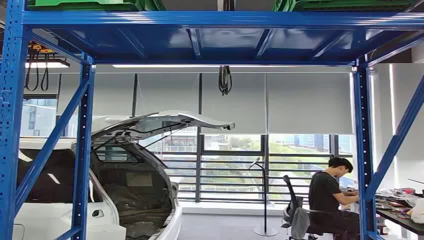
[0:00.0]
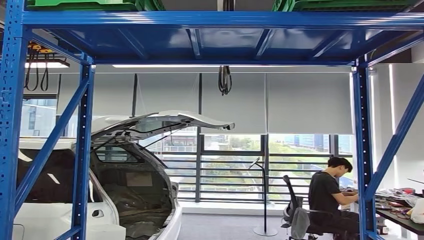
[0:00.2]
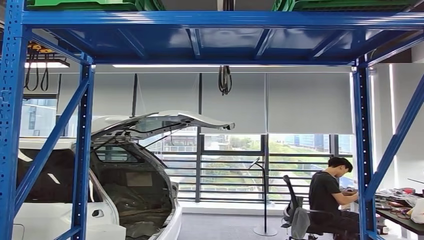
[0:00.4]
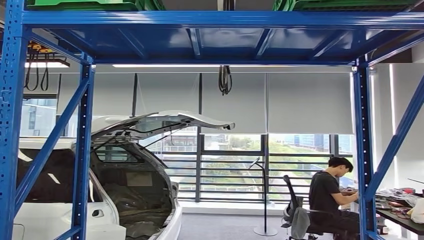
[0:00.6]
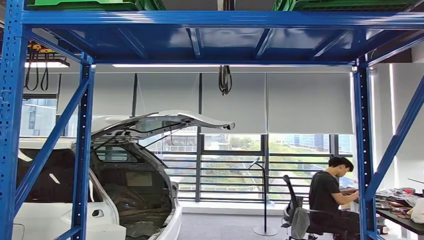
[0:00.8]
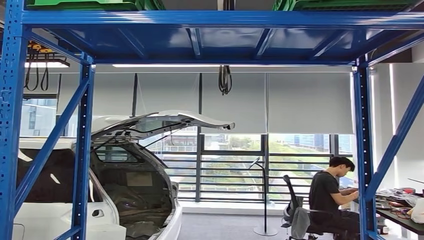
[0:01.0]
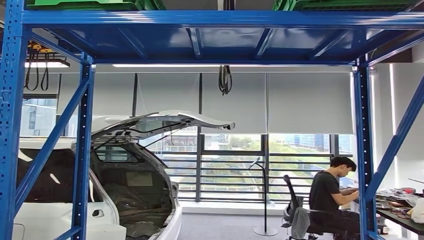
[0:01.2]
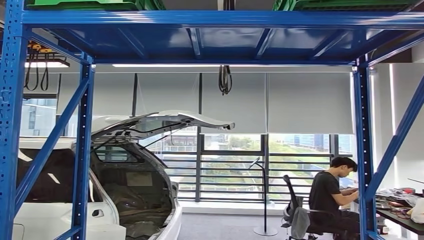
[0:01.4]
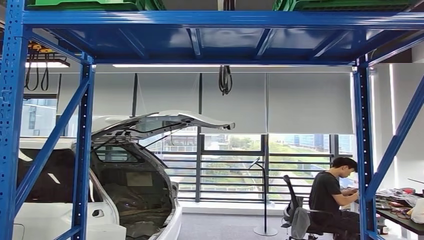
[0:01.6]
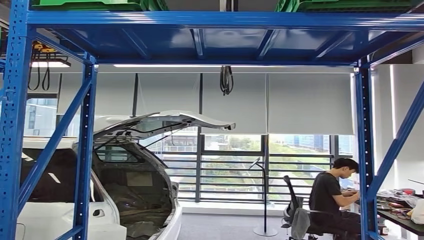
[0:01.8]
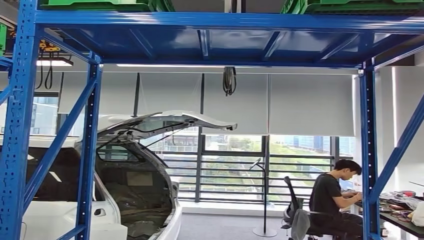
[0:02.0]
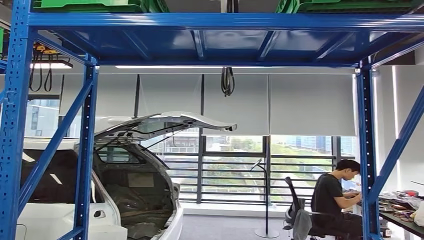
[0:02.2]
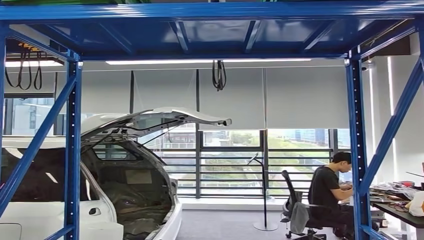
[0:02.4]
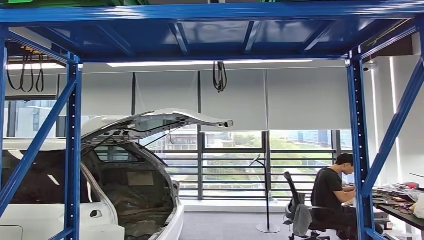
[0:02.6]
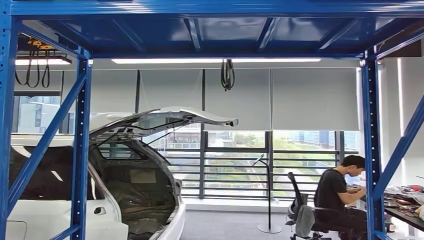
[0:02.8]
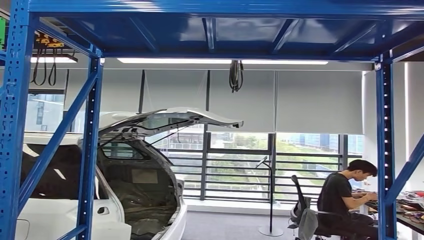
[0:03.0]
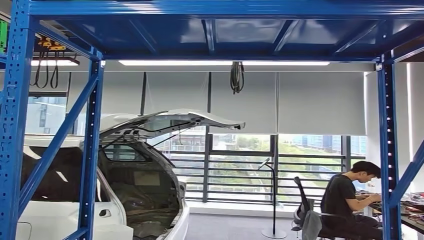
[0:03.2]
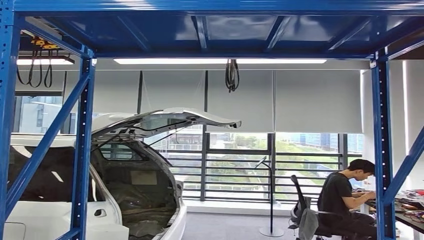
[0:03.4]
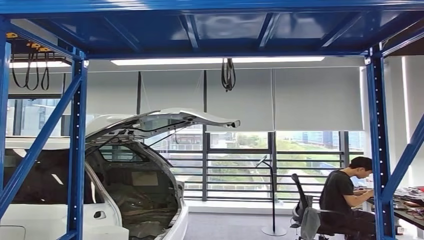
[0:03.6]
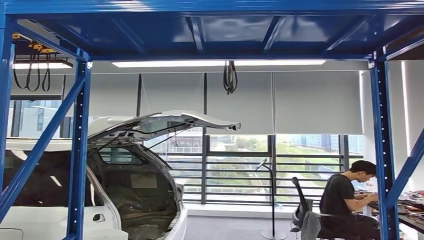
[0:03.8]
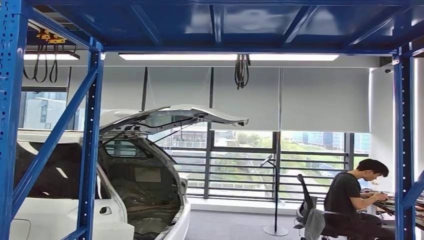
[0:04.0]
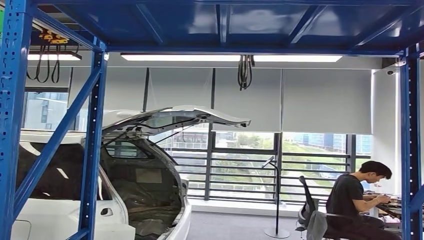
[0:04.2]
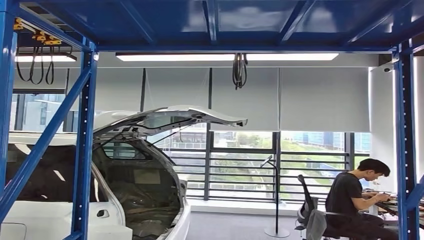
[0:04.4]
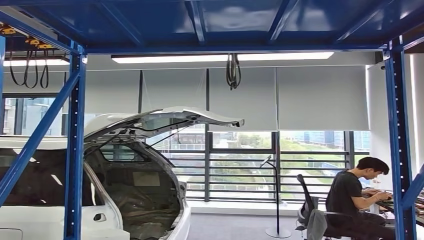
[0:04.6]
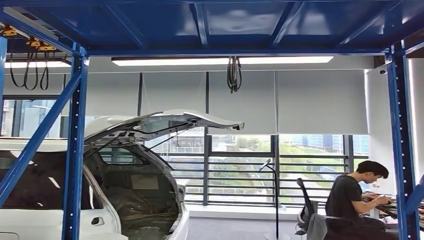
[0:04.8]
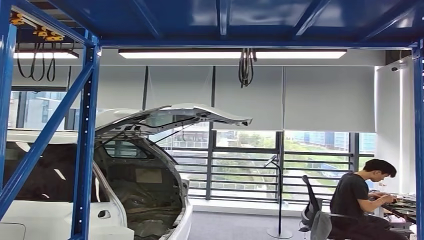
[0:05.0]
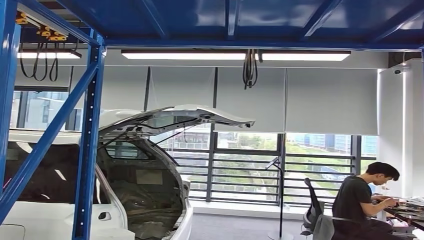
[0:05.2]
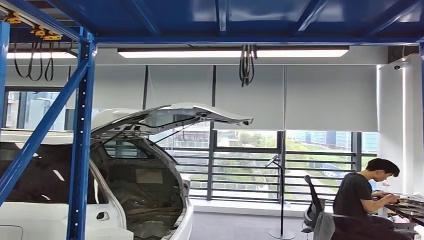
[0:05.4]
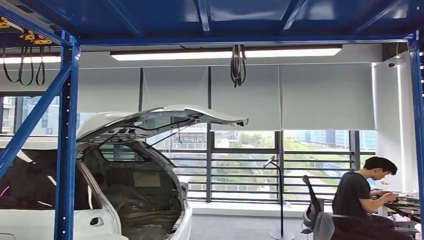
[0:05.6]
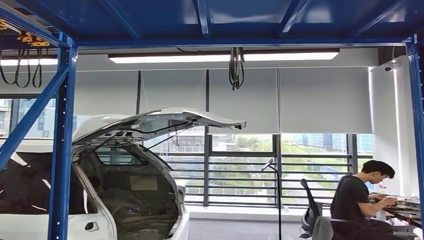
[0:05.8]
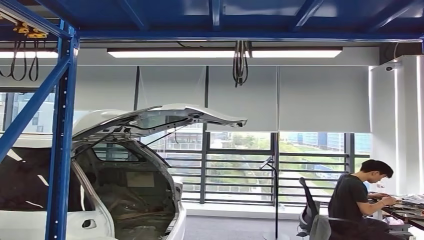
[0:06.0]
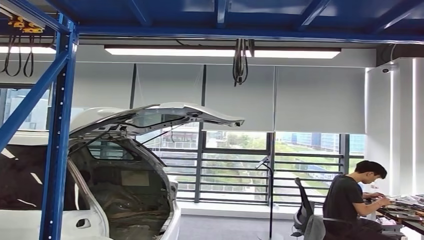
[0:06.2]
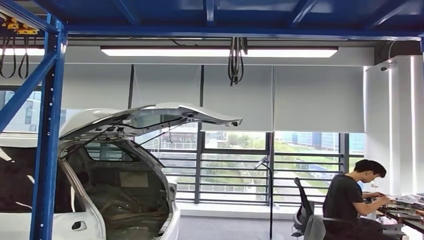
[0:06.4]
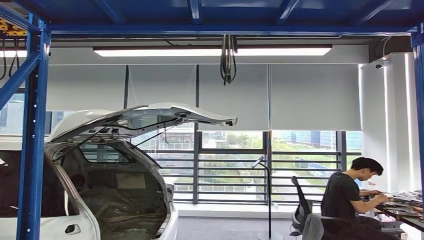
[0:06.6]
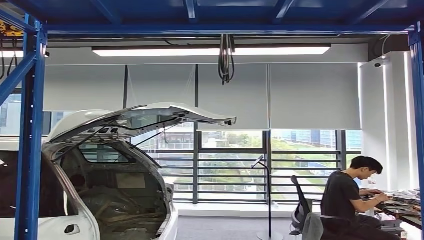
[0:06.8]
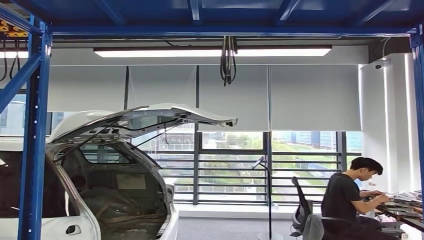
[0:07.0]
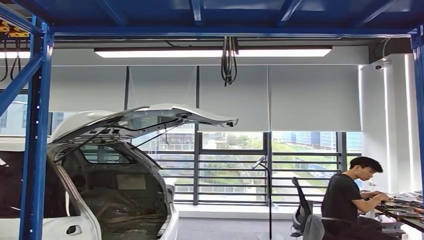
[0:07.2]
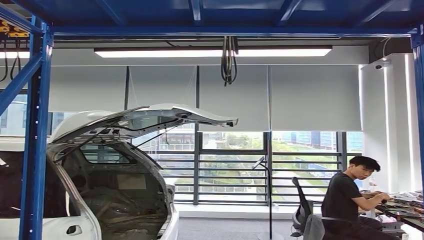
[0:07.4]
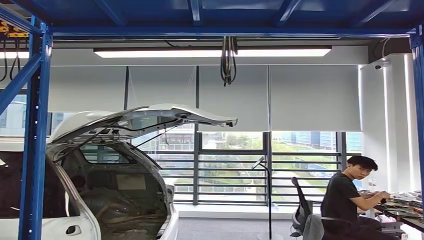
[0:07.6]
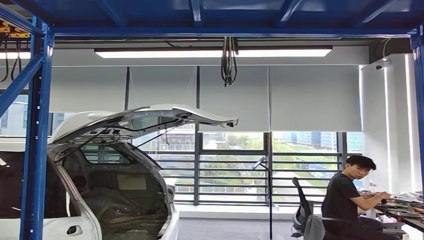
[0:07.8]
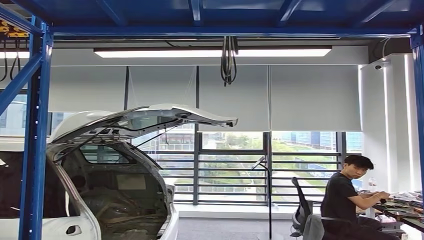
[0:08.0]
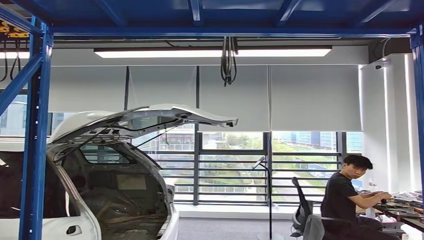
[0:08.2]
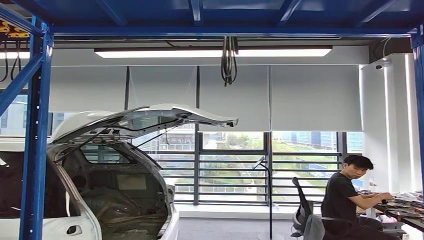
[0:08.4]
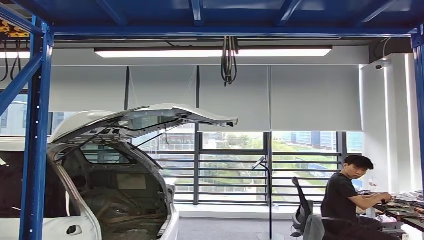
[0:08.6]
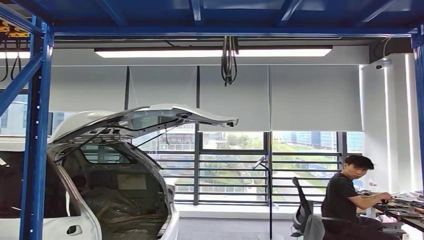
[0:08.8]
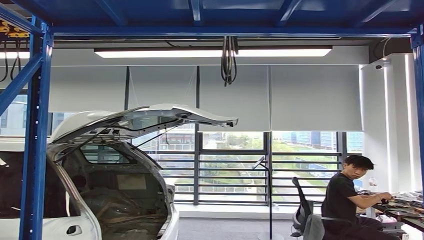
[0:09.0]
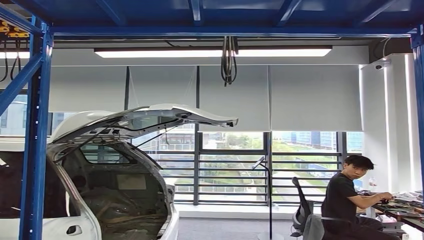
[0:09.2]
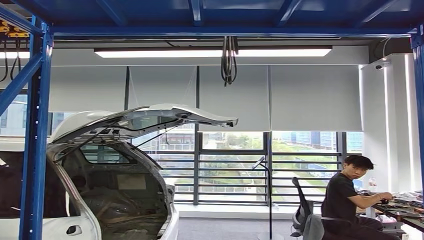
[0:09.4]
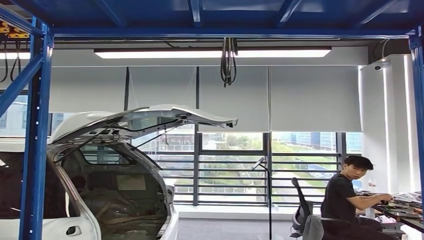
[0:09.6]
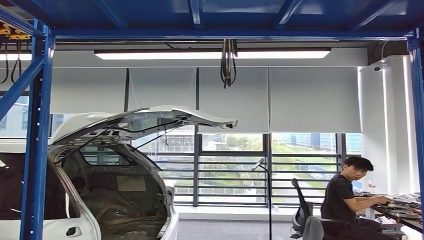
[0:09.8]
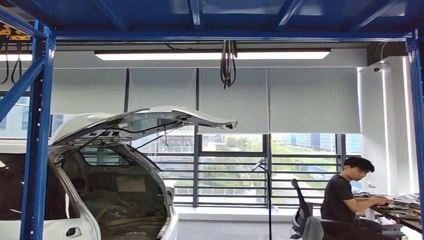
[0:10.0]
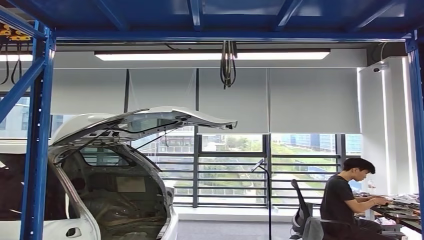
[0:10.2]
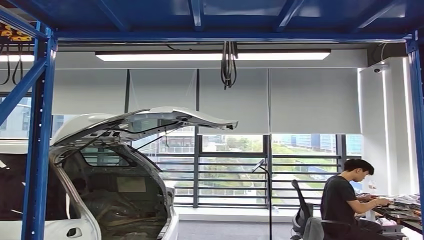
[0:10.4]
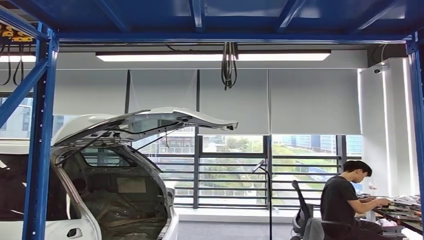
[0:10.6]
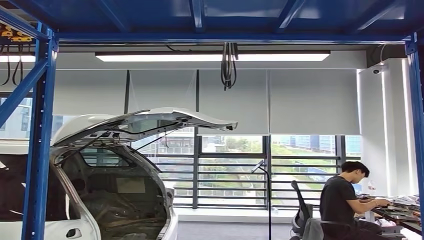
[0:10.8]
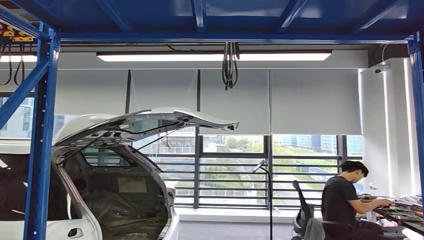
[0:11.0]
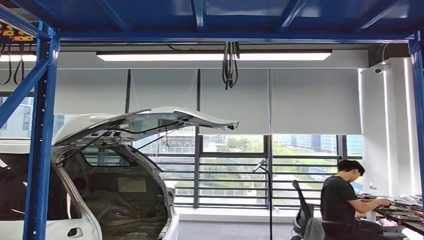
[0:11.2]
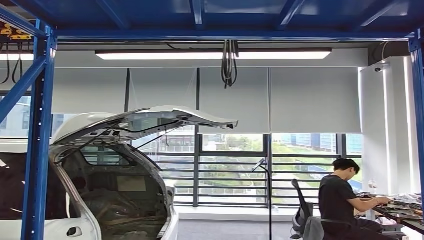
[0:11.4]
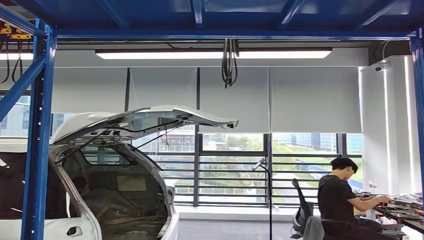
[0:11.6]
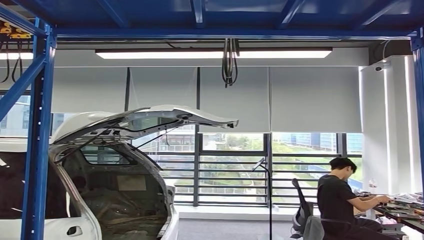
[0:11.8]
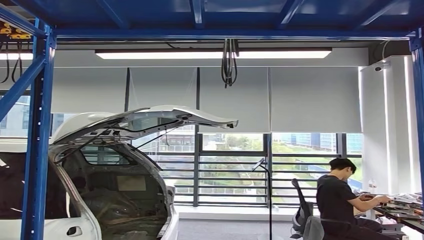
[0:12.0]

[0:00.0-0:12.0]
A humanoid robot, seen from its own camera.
Step, 0:00.0 to 0:11.6: Pick up the small parts from the shelf.
0:07.6 to 0:09.0: The right hand travels forward by about 10 cm.

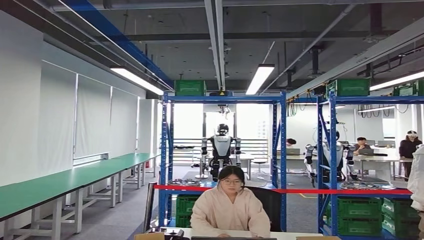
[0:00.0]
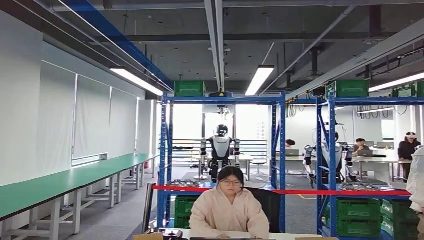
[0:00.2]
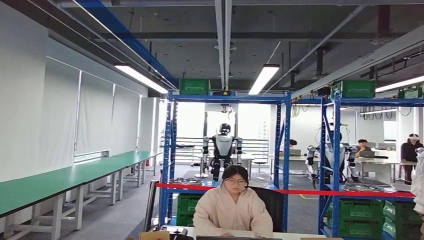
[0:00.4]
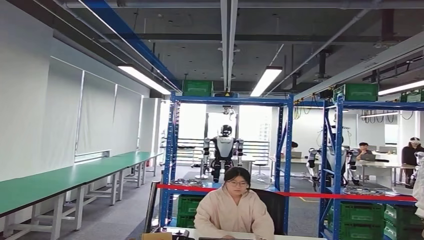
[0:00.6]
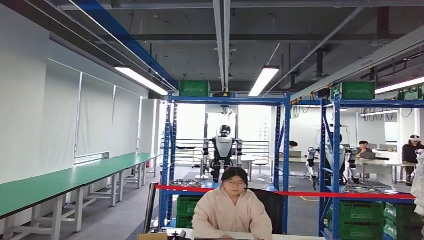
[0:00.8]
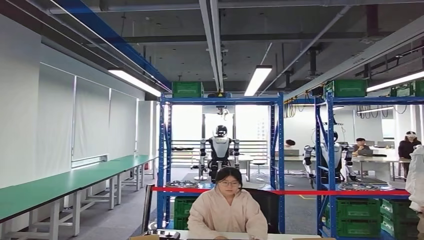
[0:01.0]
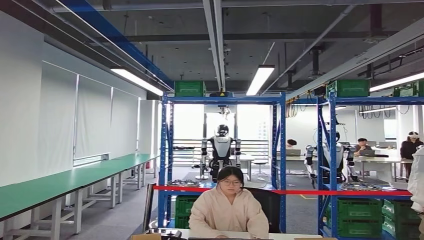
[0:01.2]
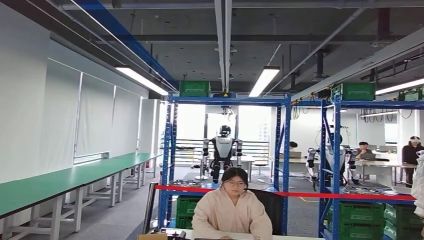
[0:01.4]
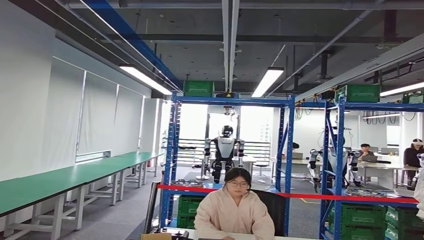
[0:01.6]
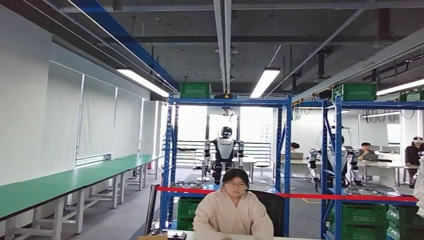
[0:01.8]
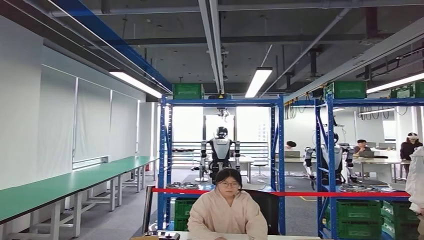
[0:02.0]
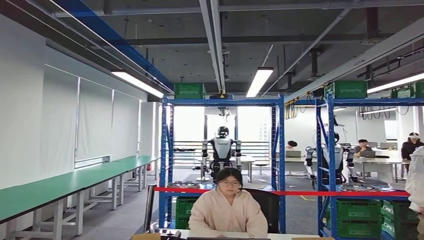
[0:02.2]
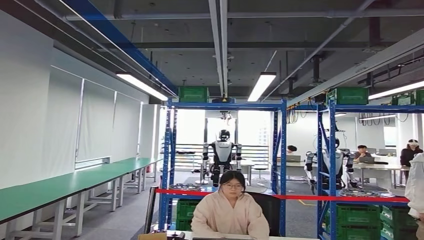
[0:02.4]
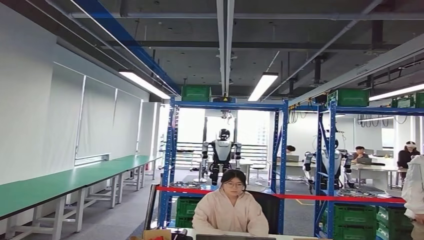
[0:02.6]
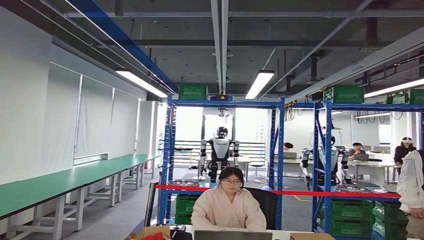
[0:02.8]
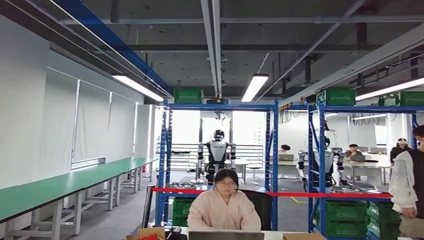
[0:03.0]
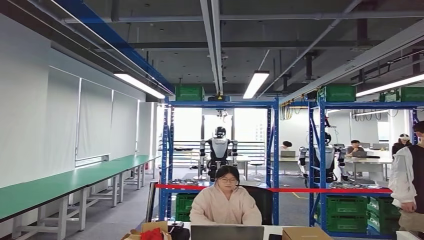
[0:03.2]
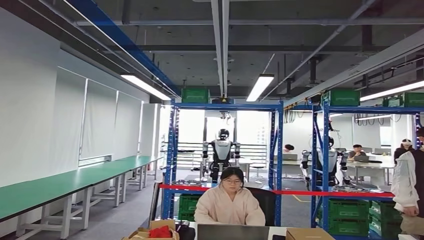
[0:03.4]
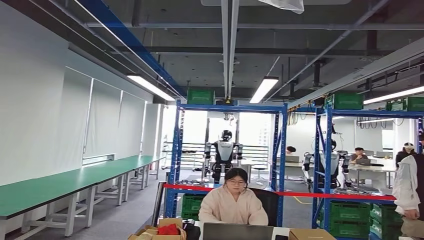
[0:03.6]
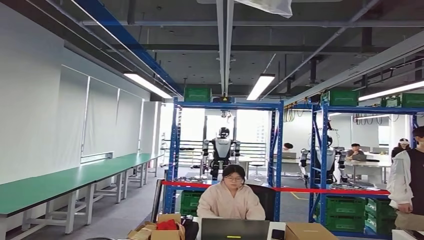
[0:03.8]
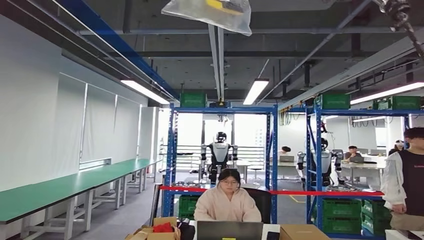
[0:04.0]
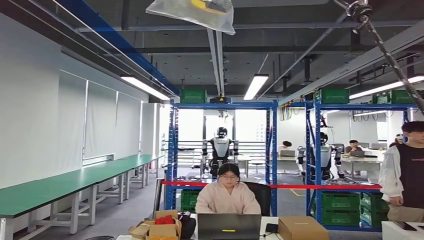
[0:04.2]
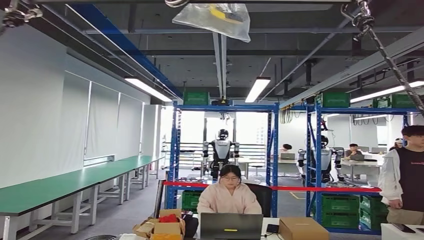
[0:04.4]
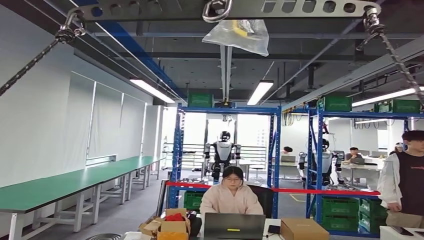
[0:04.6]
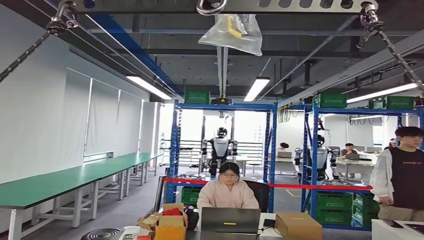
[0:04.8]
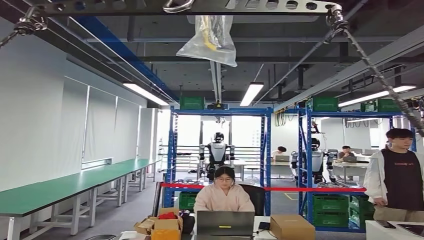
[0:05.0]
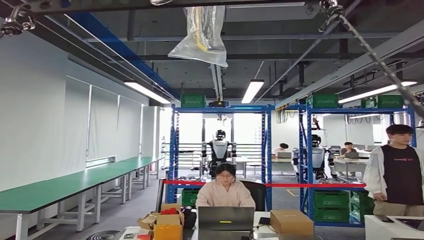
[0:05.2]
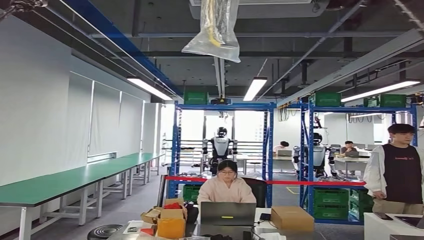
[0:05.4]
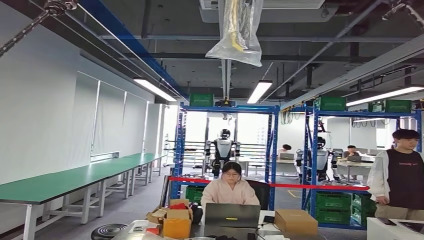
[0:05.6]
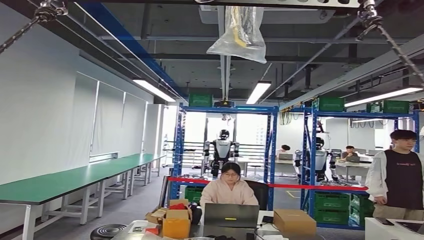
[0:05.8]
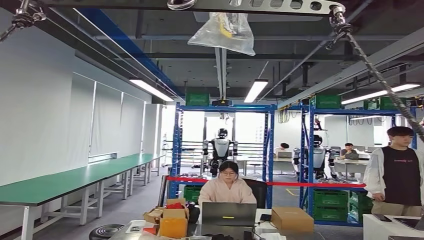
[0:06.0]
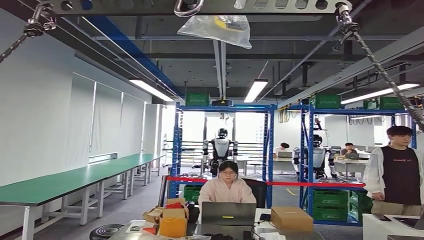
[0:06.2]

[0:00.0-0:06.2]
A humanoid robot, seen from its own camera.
Step, 0:00.2 to 0:03.4: Insert the small parts into the corresponding holes on the workbench.
Step, 0:03.6 to 0:06.2: Move to the initial position at the workbench.
